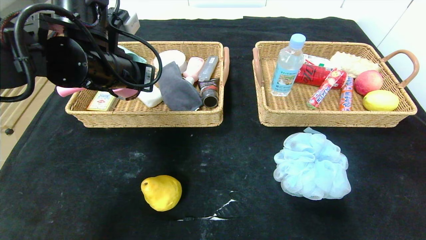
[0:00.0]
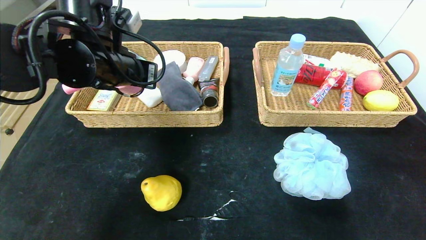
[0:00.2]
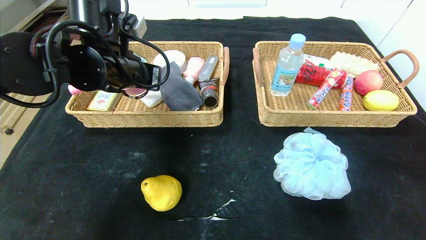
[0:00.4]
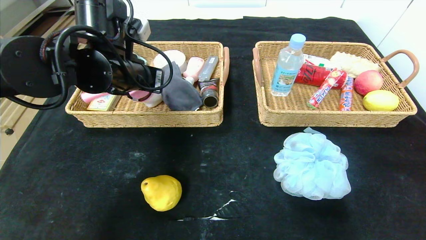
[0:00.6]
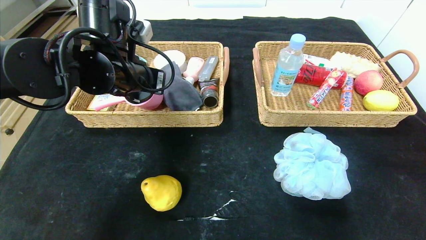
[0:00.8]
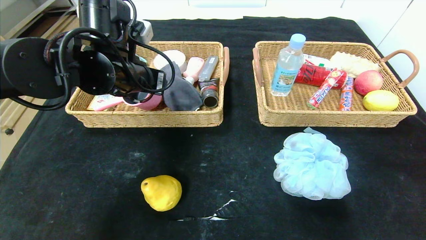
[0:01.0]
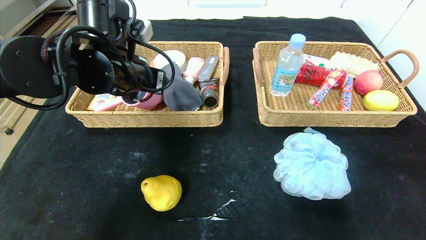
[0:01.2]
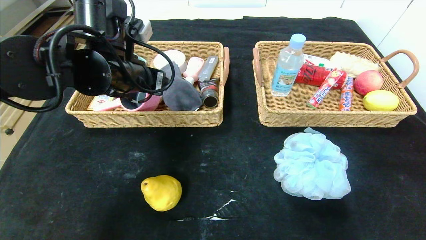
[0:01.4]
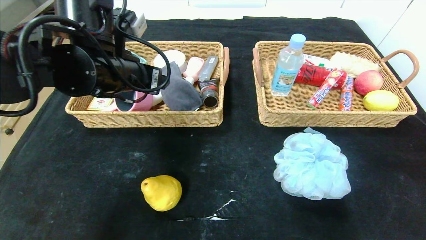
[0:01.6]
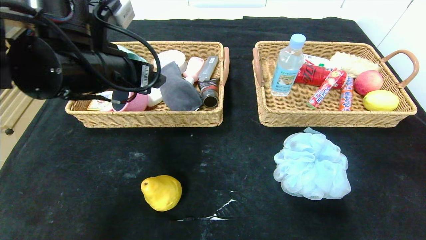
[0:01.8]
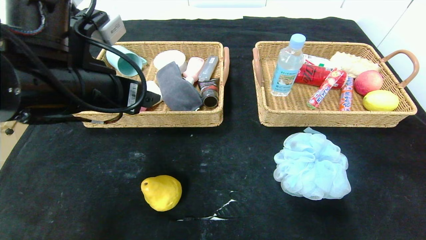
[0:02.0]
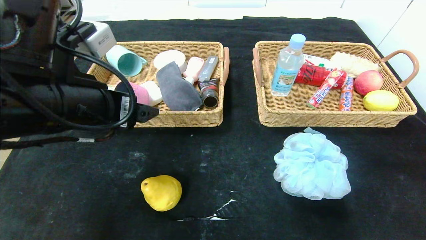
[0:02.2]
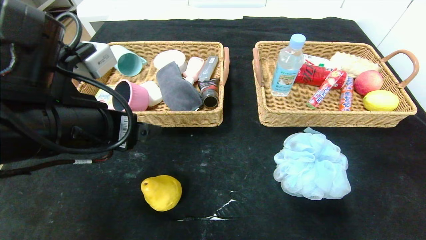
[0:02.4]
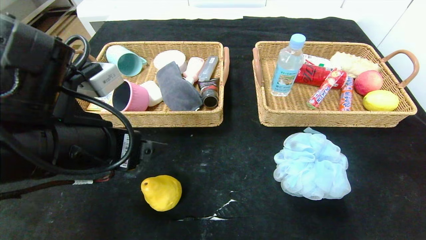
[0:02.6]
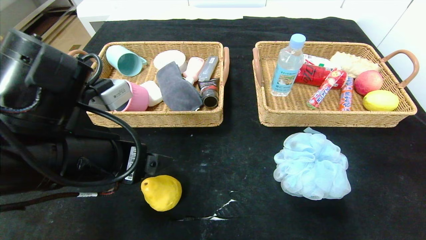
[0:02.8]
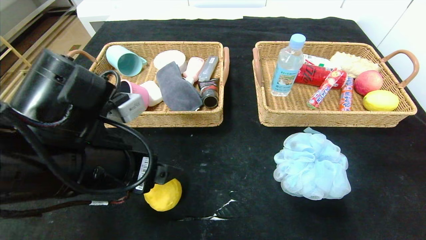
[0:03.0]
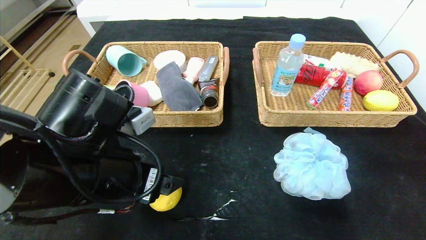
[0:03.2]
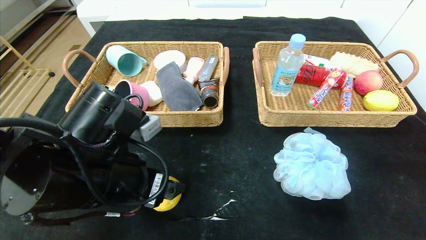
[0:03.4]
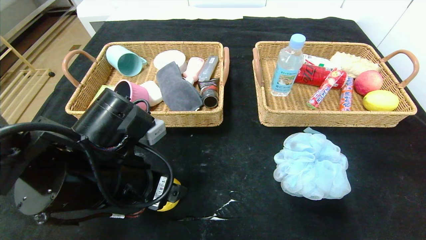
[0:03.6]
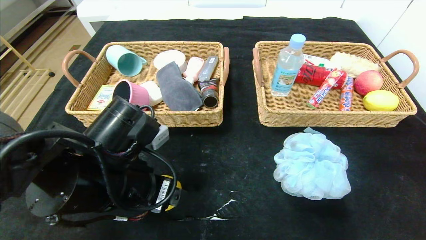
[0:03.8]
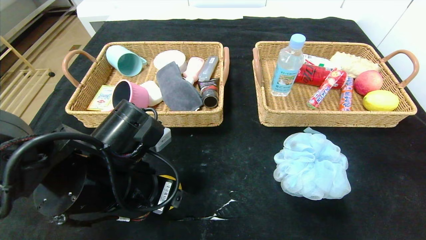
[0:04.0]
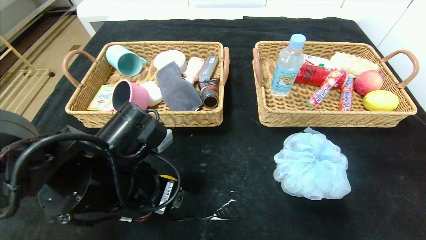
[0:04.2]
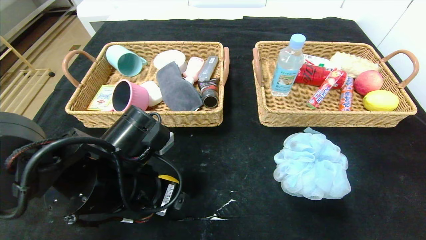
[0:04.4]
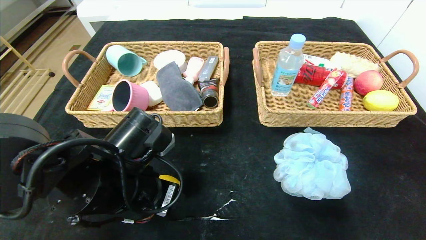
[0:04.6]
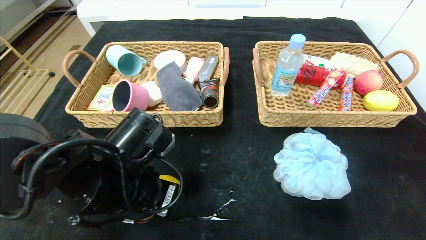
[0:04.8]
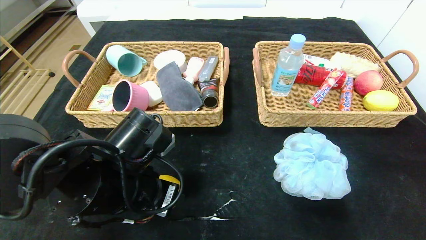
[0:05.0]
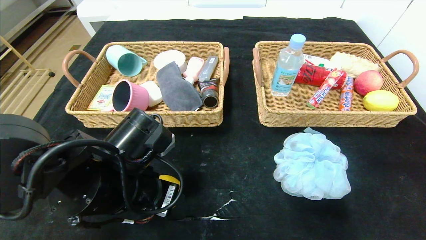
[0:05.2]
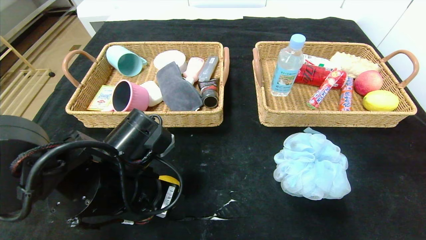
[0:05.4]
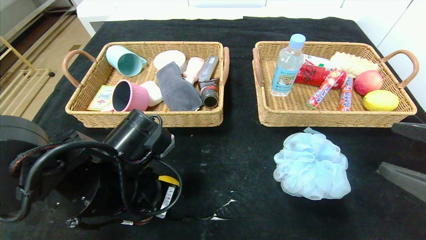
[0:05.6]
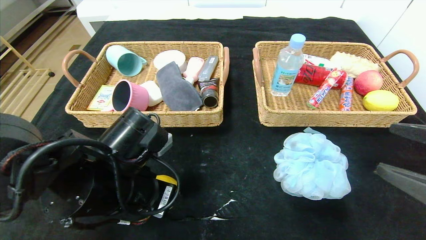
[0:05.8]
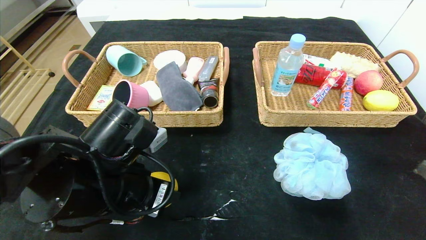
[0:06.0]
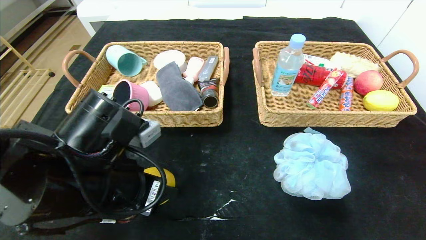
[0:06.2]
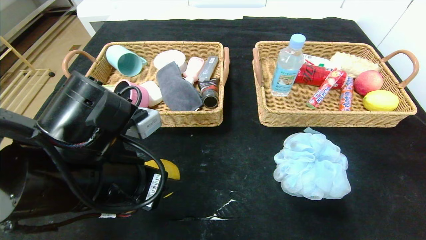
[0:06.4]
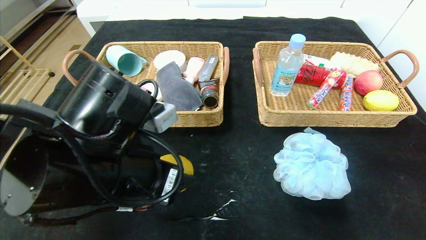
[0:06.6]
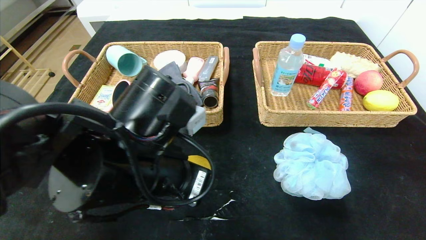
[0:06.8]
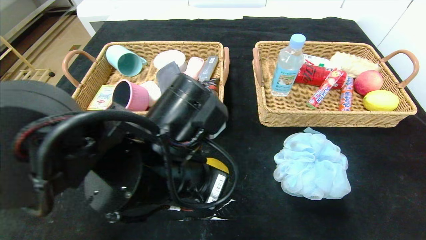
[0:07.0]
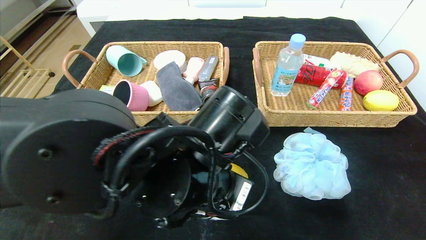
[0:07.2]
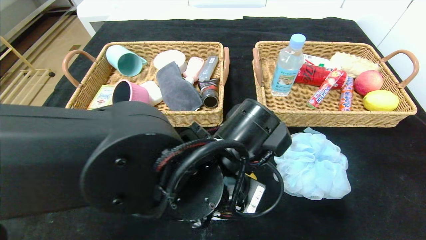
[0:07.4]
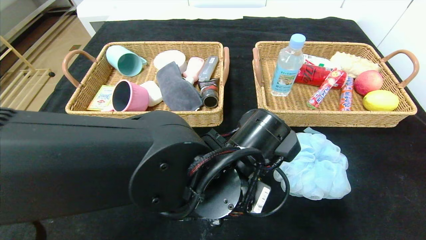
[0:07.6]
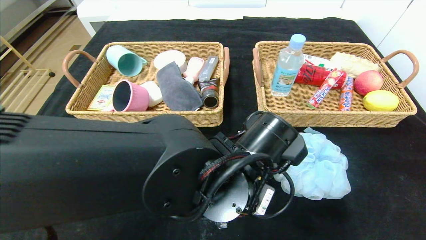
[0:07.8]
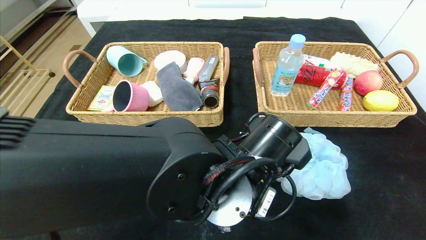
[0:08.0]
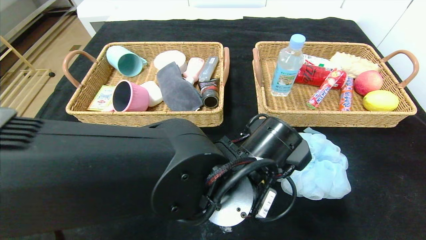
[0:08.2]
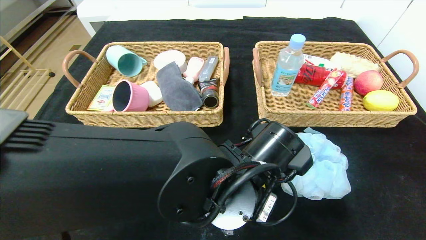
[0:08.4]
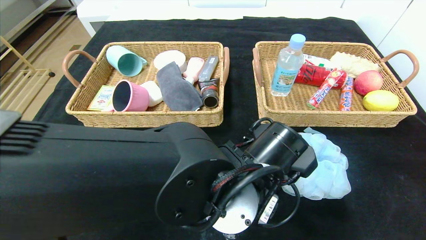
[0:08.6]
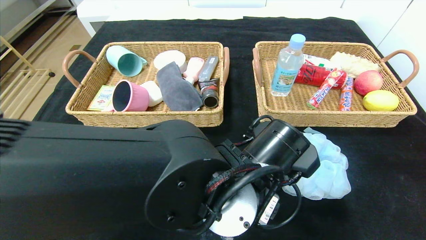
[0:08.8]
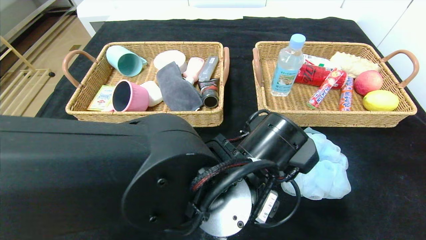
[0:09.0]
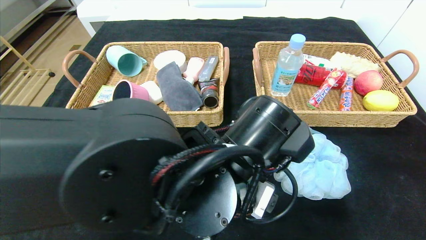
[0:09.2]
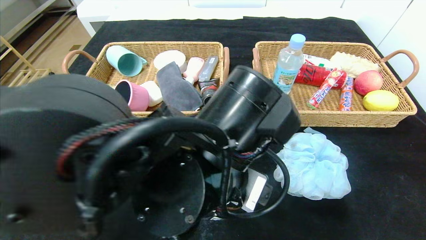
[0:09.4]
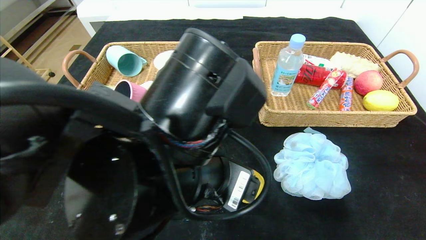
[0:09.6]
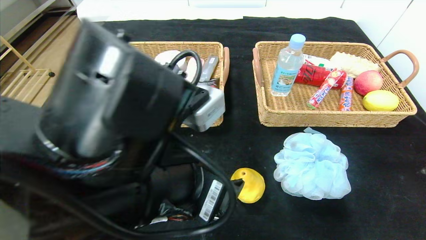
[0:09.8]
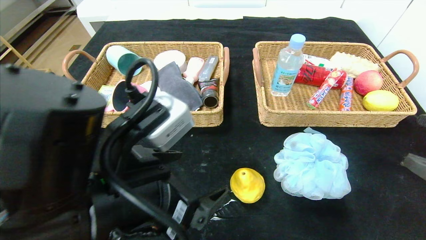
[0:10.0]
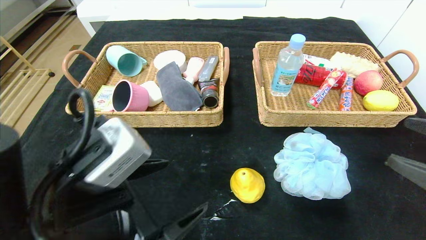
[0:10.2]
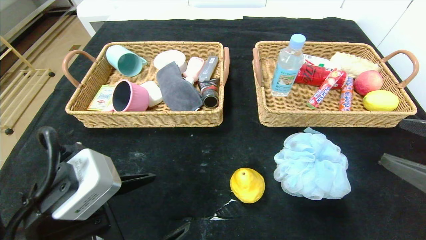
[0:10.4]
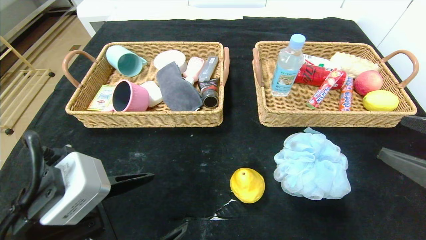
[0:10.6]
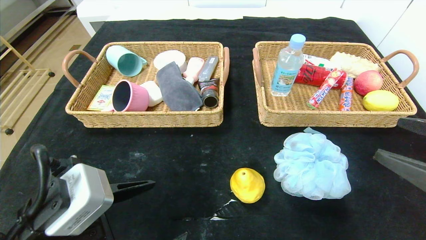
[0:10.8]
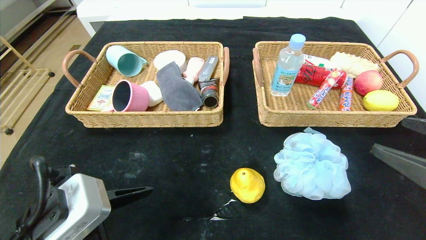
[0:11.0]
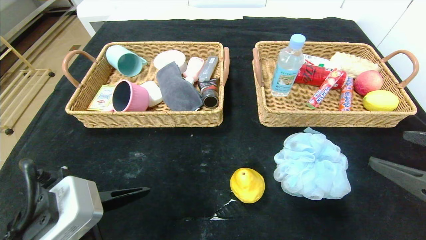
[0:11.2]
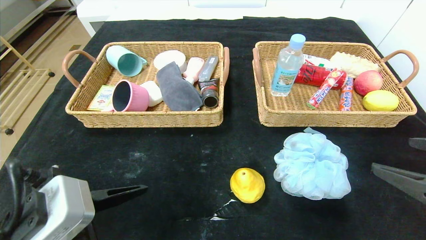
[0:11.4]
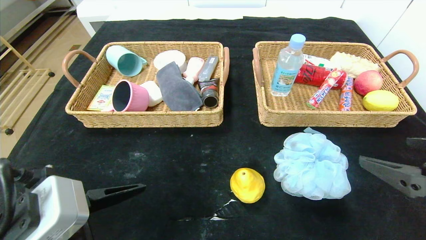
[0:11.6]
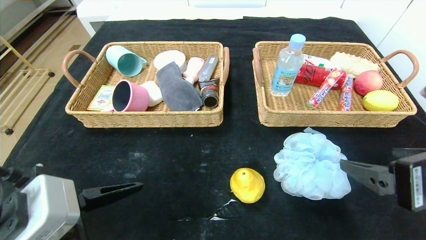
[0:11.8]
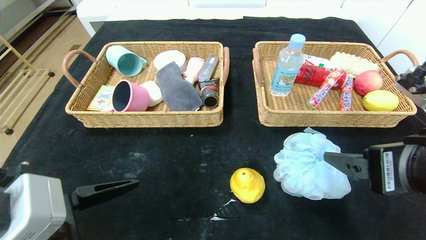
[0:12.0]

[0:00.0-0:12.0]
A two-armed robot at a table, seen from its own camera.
Step, 0:01.6 to 0:09.0: Place the pear in the center of the table.
0:00.0 to 0:01.6: The left gripper opens up.
0:01.6 to 0:03.0: The left gripper goes about 15 cm backward and downward.
0:03.0 to 0:04.4: The left gripper travels downward by roughly 5 cm.
0:04.4 to 0:06.0: There are only small adjustments of the grippers.
0:06.0 to 0:07.6: The left gripper heads to the right, covering approximately 15 cm.
0:07.6 to 0:09.0: The grippers make only small movements.
0:09.0 to 0:10.4: The left gripper shifts some 20 cm to the left and backward.
0:10.4 to 0:12.0: The right gripper heads to the left, covering about 10 cm.

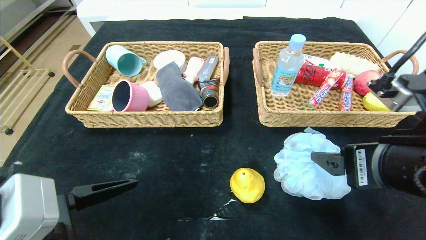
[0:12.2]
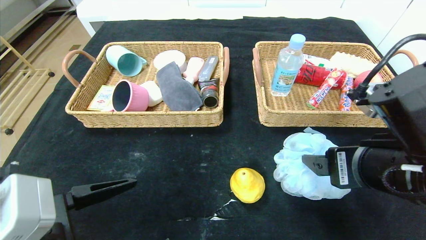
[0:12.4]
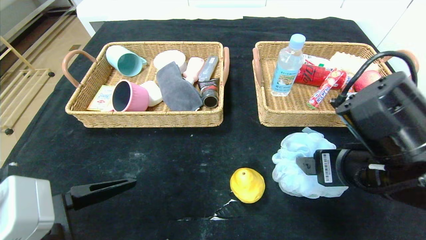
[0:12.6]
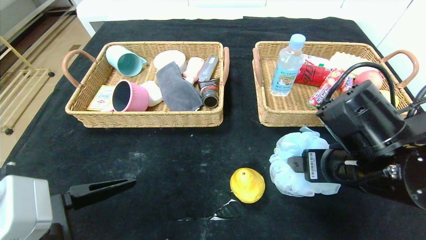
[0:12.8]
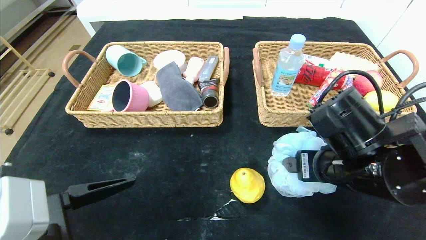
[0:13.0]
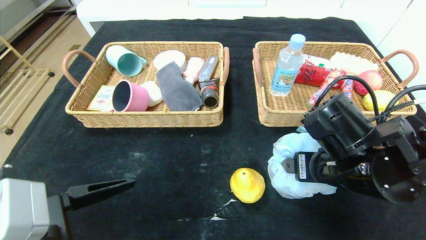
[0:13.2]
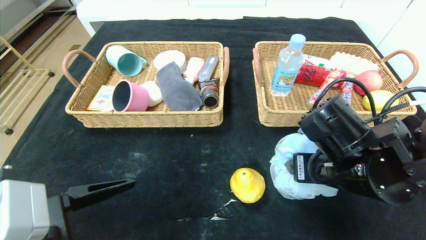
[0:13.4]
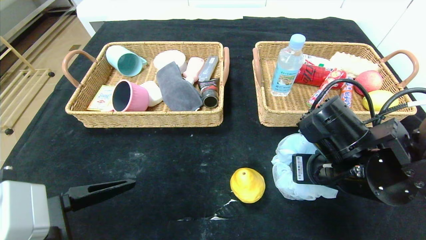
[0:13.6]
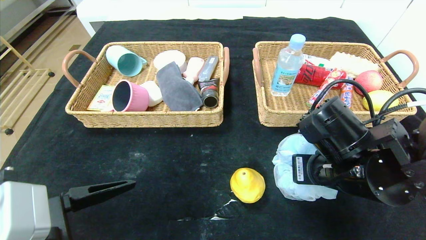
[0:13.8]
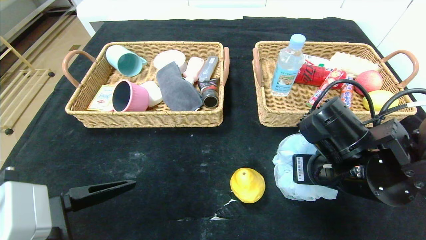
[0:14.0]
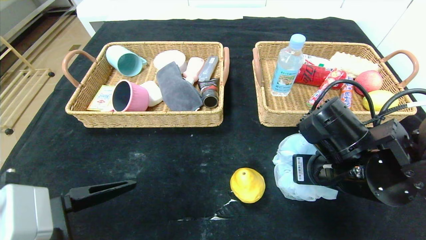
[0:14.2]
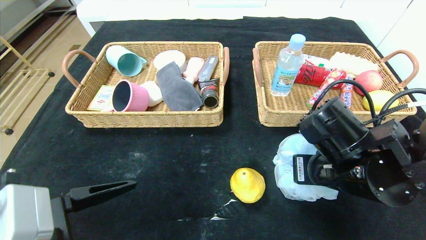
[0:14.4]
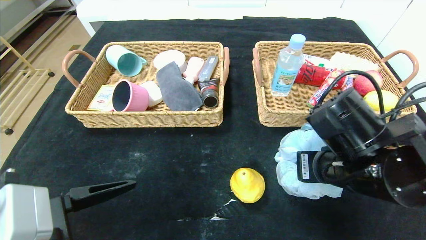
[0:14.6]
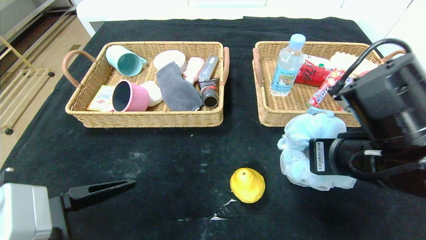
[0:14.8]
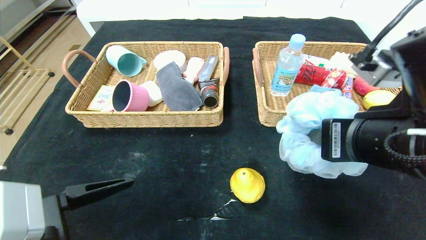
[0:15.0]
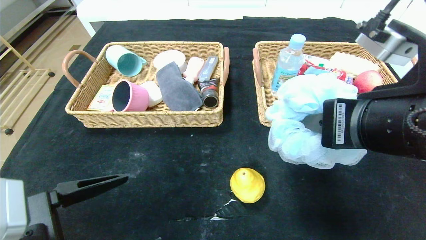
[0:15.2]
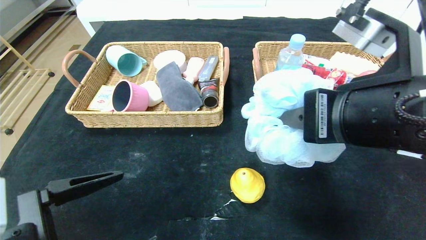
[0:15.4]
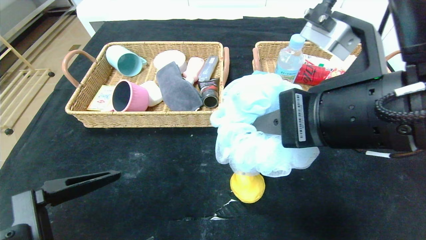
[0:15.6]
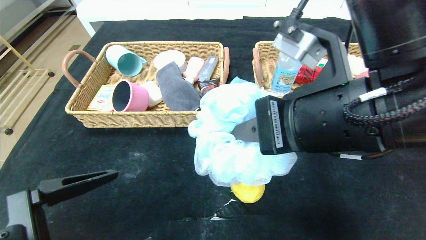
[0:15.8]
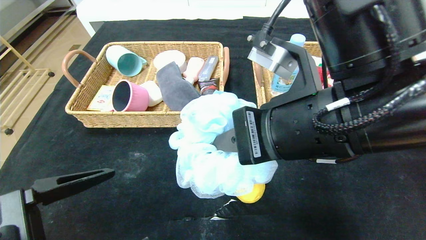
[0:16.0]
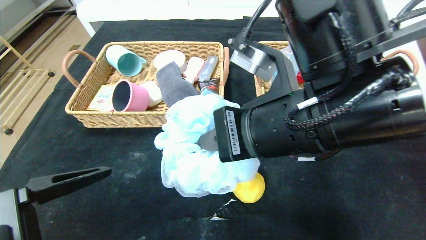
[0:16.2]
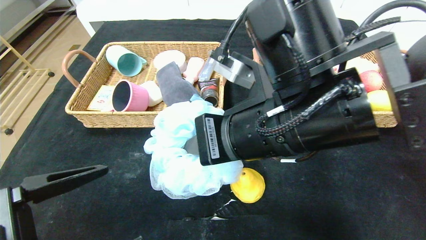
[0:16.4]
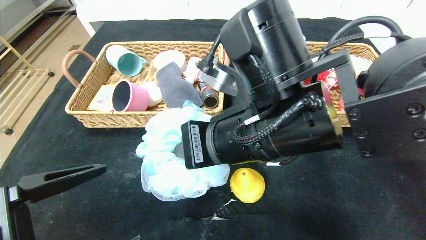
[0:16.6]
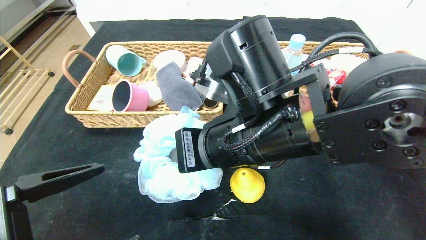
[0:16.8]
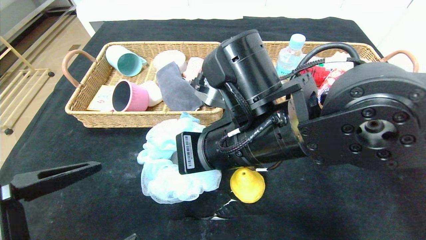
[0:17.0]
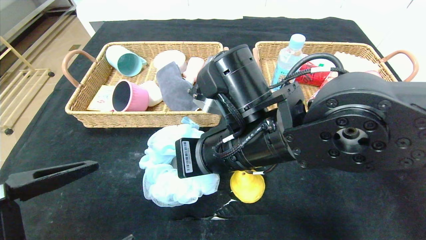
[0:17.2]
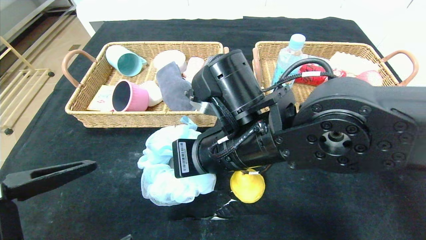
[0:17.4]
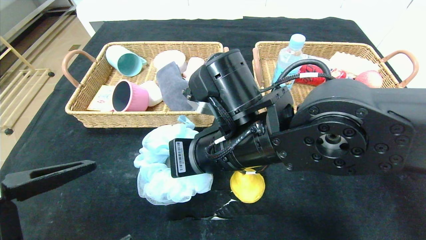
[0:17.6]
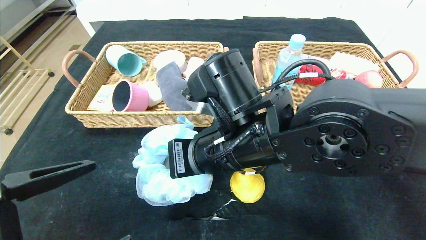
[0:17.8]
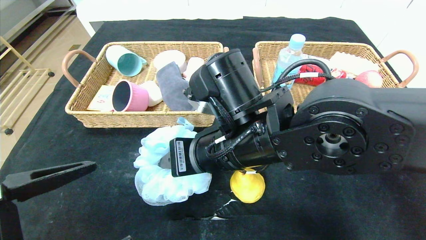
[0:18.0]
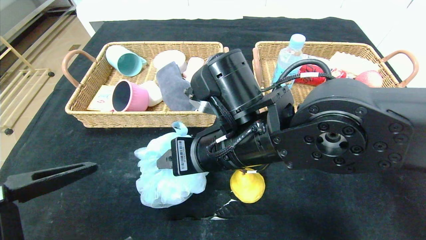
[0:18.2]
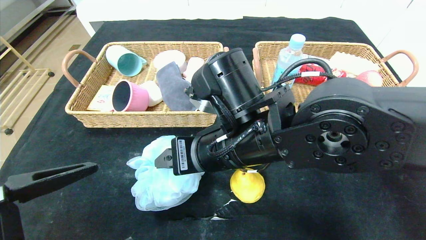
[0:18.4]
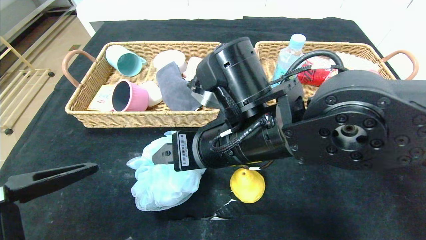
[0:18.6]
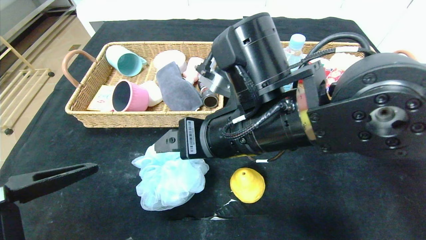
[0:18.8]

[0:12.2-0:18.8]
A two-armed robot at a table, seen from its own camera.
Step, 0:12.2 to 0:18.8: Place the bath ball in the center of the table.
0:12.2 to 0:13.8: The right gripper is displaced forward and downward by about 10 cm, and closes its fingers.
0:13.8 to 0:15.4: The right gripper shifts some 15 cm upward and backward.
0:15.4 to 0:17.2: The right gripper moves to the left, downward and forward, approximately 15 cm.
0:17.2 to 0:18.8: The right gripper opens.
